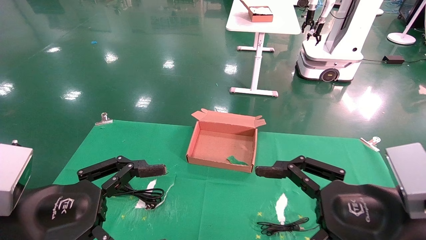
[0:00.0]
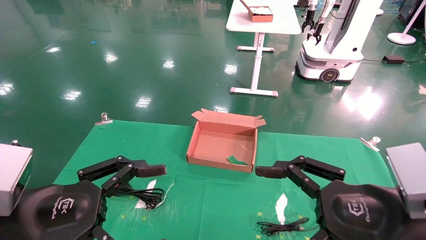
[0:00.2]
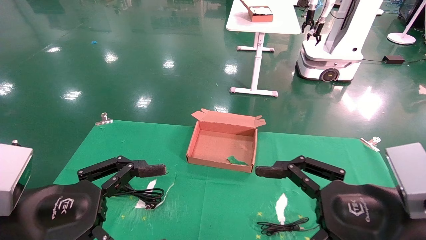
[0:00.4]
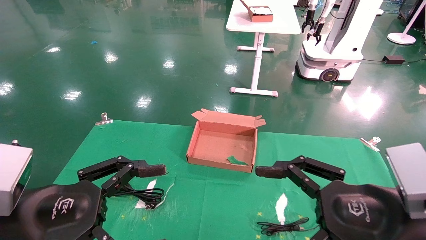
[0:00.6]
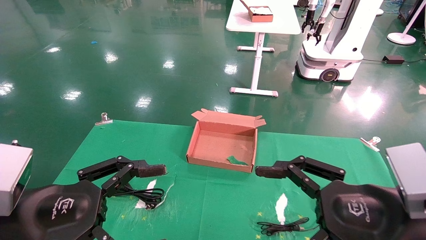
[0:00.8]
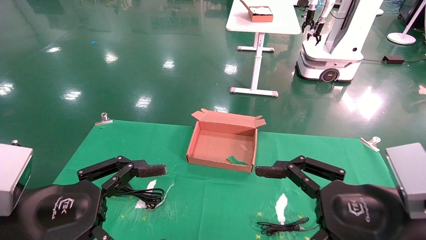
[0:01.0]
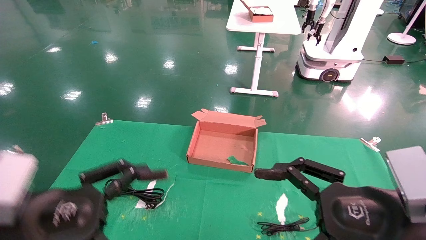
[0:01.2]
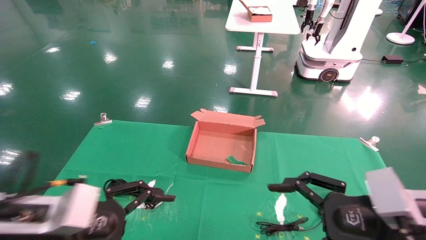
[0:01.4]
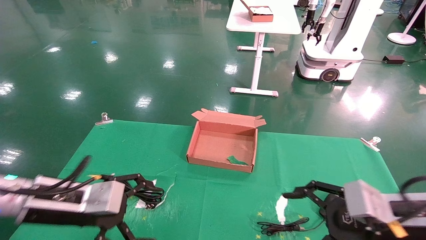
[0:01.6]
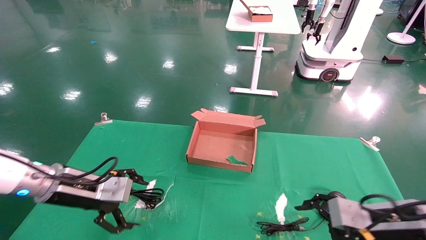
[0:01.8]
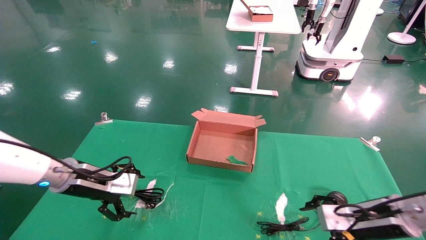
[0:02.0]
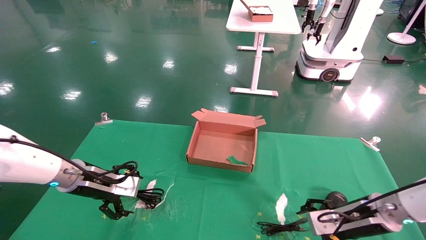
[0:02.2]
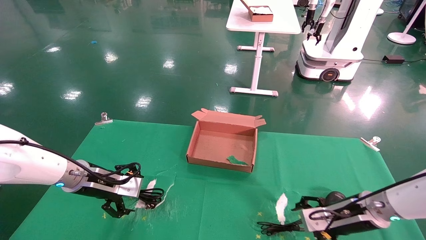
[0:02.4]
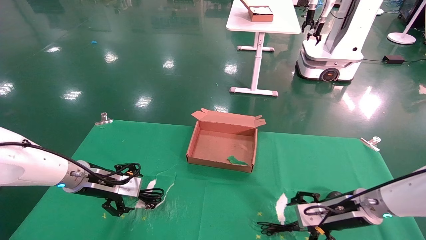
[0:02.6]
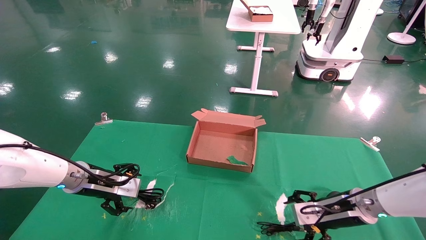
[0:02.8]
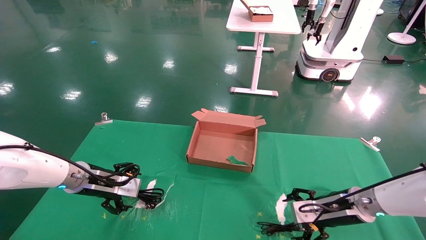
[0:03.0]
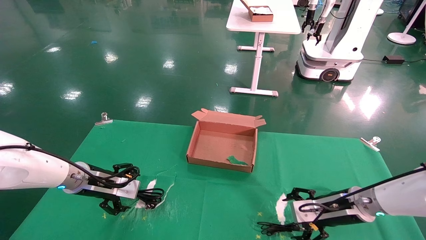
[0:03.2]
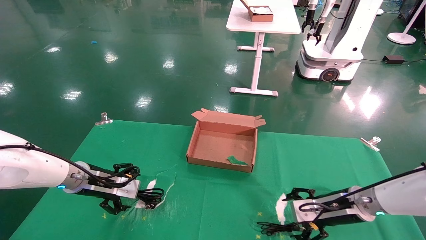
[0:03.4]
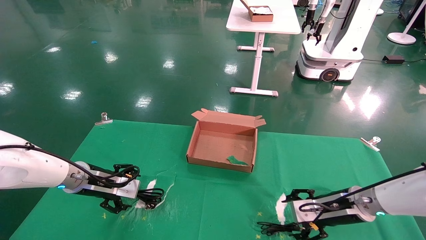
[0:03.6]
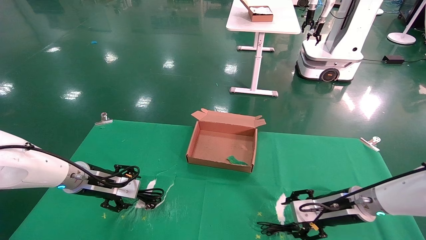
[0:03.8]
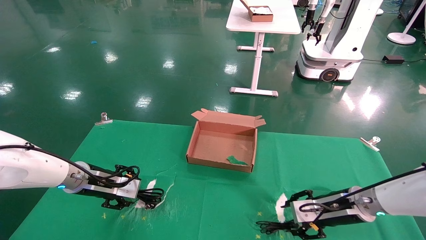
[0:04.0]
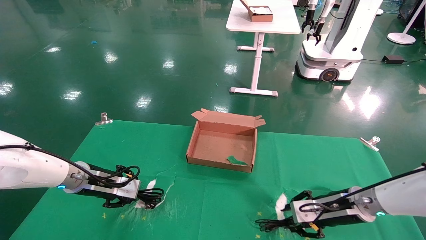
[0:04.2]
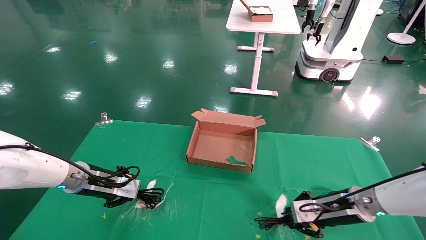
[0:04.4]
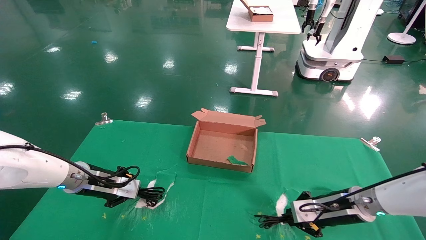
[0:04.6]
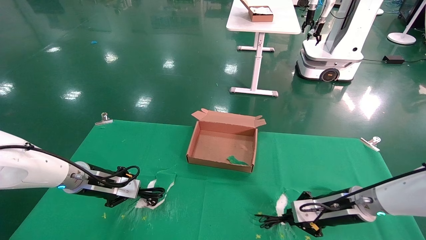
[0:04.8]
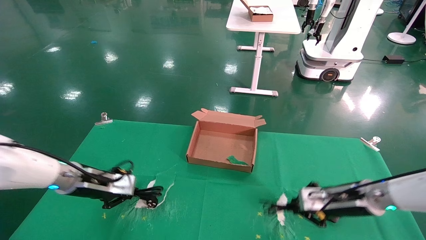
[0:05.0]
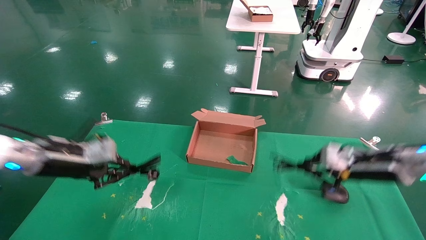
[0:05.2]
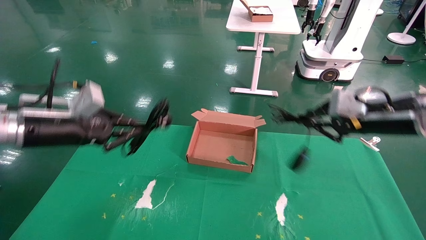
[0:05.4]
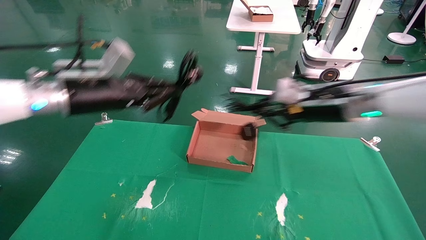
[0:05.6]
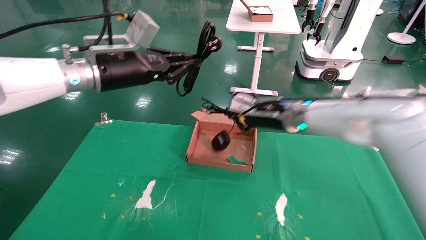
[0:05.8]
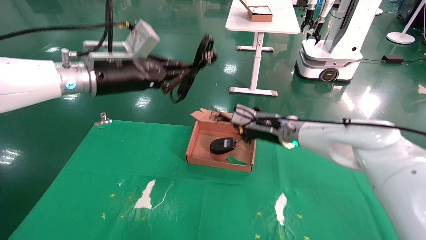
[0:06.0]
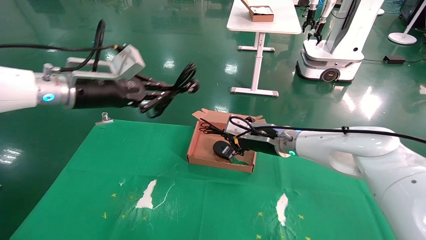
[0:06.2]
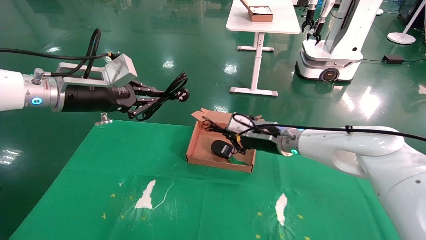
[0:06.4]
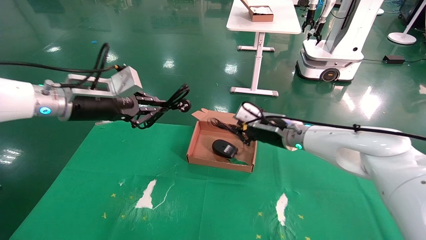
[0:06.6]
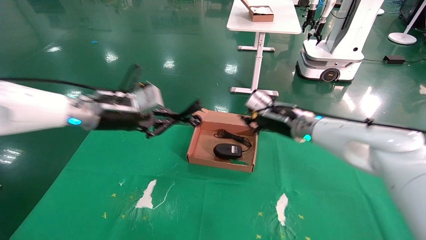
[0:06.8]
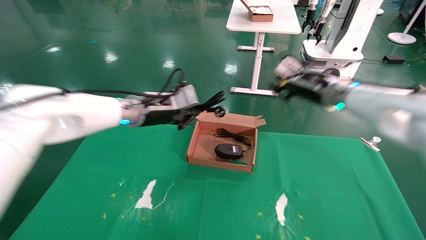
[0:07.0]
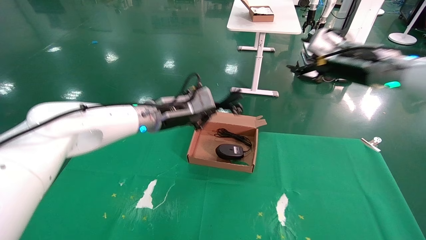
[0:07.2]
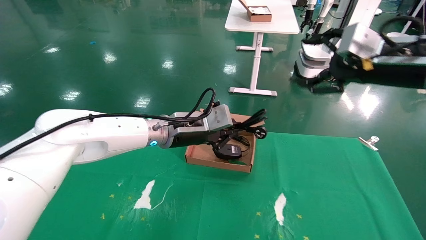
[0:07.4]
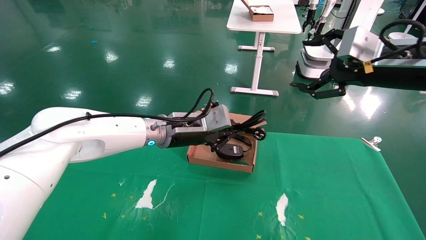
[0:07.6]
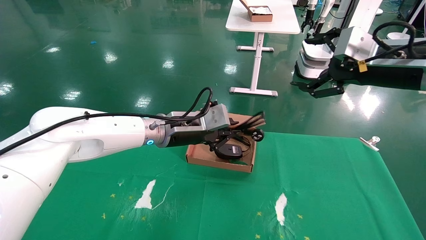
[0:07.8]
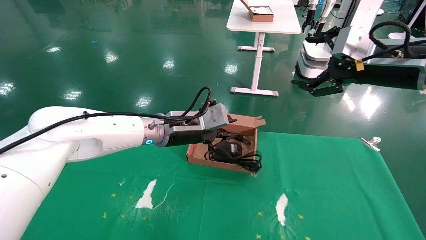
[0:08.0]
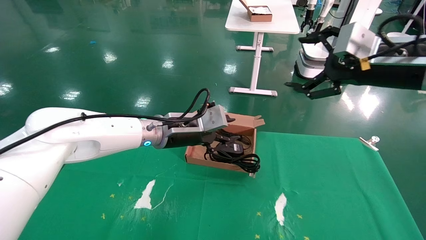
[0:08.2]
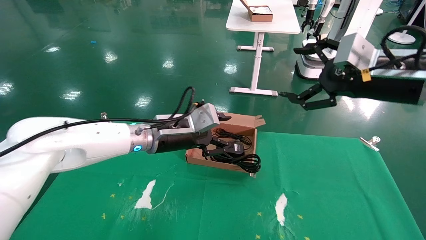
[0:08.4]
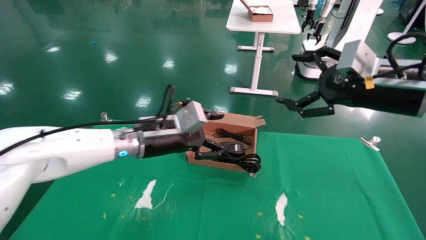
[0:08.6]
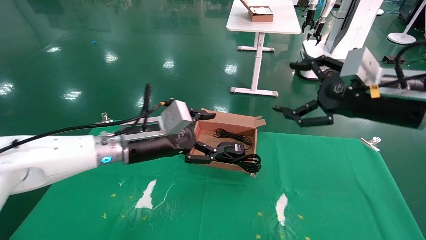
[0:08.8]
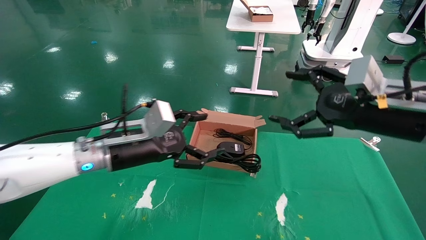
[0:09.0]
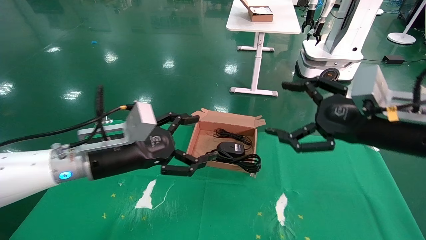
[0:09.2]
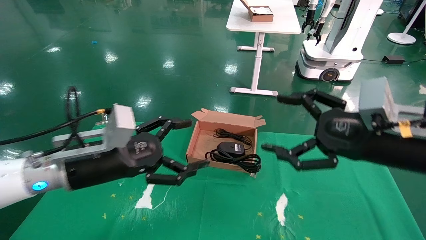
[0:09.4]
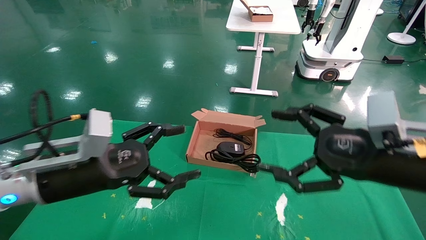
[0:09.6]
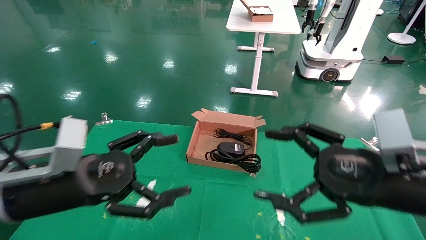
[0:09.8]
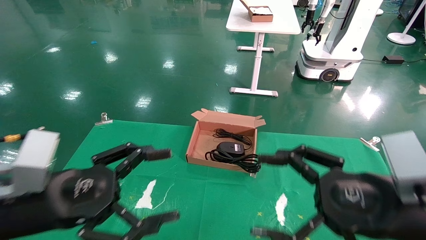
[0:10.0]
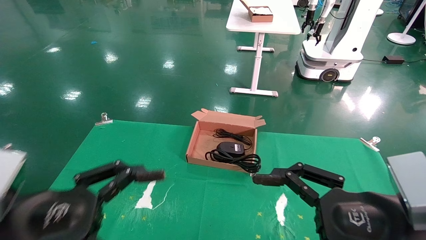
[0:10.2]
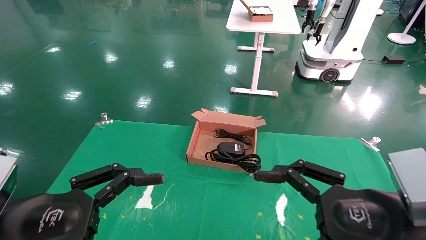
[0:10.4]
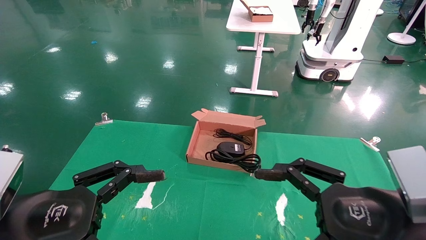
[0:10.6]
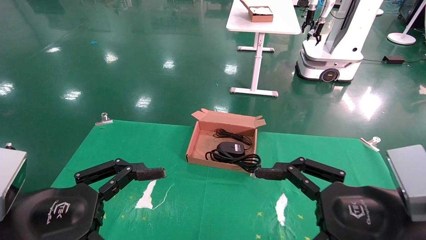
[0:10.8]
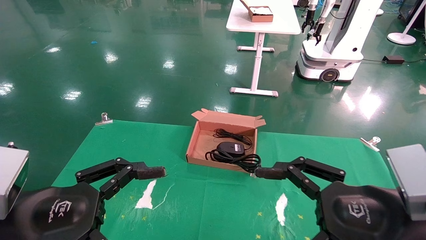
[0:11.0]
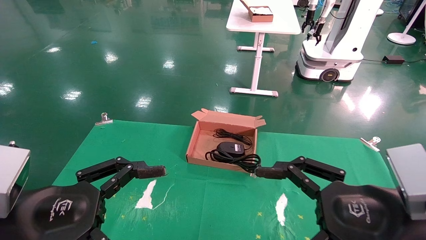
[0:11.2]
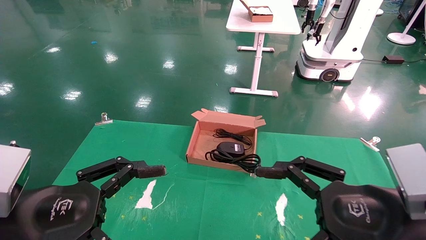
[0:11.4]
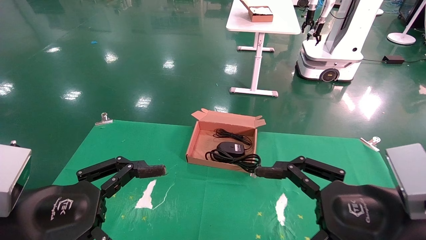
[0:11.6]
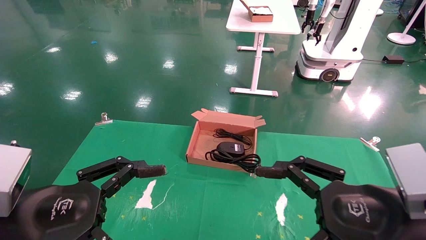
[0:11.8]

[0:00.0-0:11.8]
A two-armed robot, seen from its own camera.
Step, 0:01.4 to 0:04.6: Grab and lift both the mouse and power cord from the accessory packaging area at the same time.
Step, 0:04.8 to 0:08.6: Place the mouse and power cord into the box.
0:00.0 to 0:01.4: The left gripper heads forward, covering about 5 cm; the right gripper shifts by approximately 5 cm.
0:01.4 to 0:03.0: The right gripper goes roughly 20 cm forward and downward, while the left gripper moves forward, some 20 cm.
0:03.0 to 0:04.4: The left gripper closes its fingers. Meanwhile the right gripper closes up.
0:04.4 to 0:06.0: The left gripper heads upward, covering some 20 cm; the right gripper travels to the left, upward and forward by some 20 cm.
0:06.0 to 0:07.4: The left gripper moves to the right and downward, roughly 15 cm; the right gripper heads to the right, upward and backward, covering some 25 cm, and opens its fingers.
0:07.4 to 0:08.8: The left gripper moves to the left and backward, roughly 10 cm, and opens its fingers. Meanwhile the right gripper moves downward, some 5 cm.
0:08.8 to 0:10.4: The right gripper is displaced backward and downward by about 20 cm. The left gripper heads backward and to the left, covering some 25 cm.
0:10.4 to 0:11.8: The two grippers keep their place.

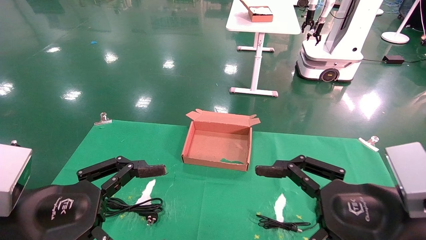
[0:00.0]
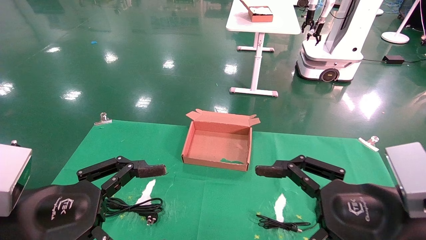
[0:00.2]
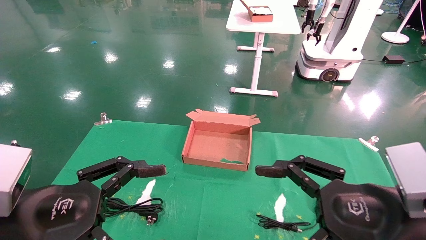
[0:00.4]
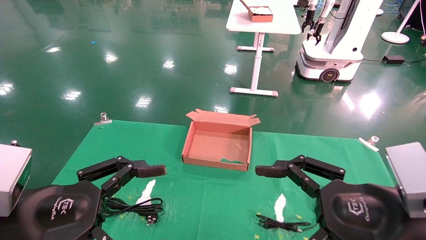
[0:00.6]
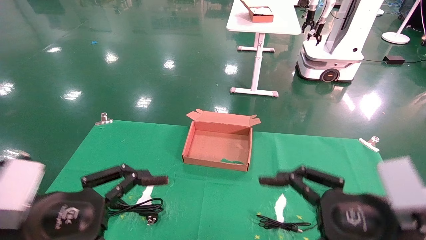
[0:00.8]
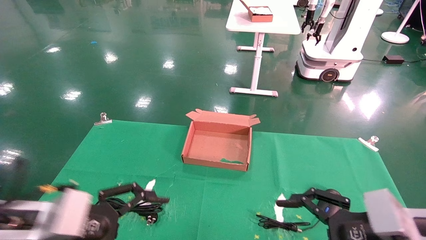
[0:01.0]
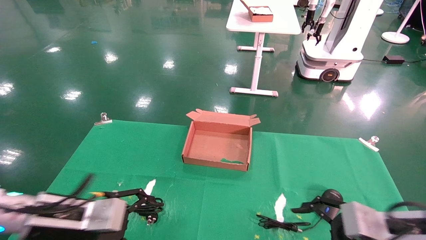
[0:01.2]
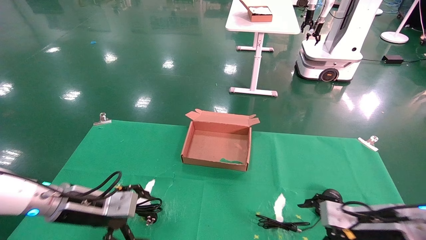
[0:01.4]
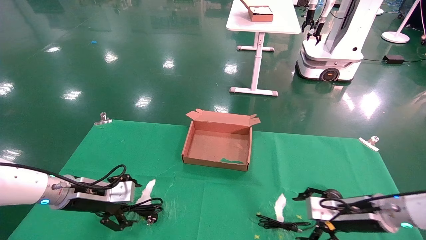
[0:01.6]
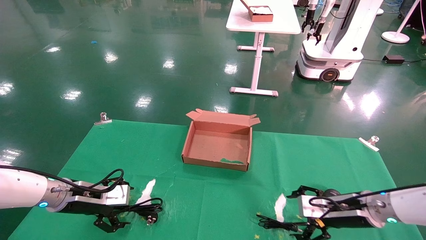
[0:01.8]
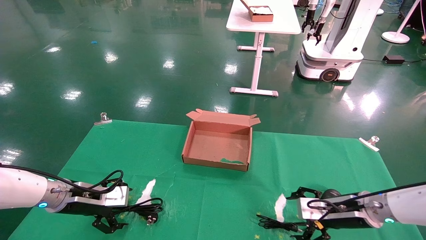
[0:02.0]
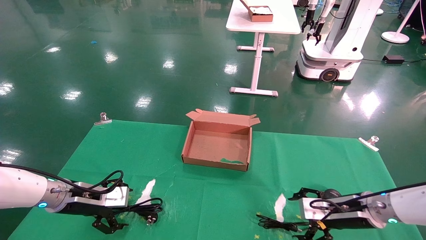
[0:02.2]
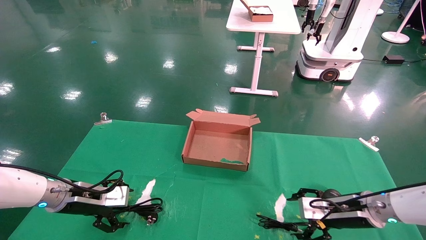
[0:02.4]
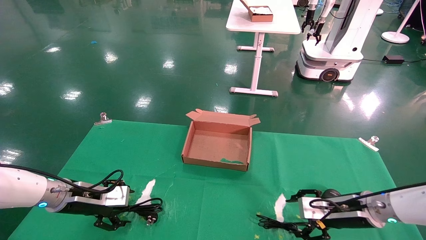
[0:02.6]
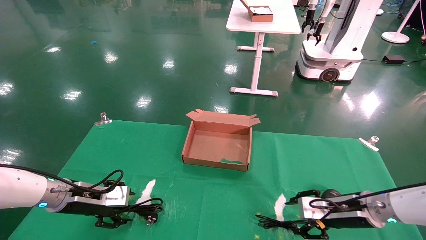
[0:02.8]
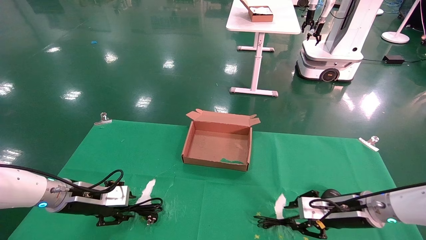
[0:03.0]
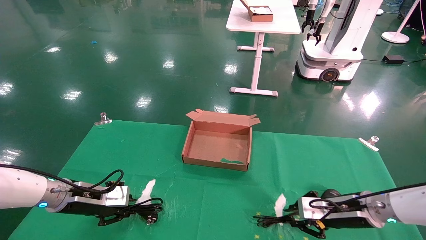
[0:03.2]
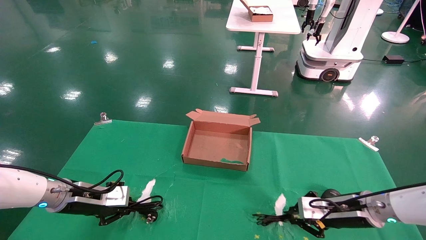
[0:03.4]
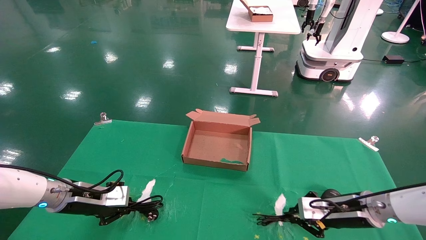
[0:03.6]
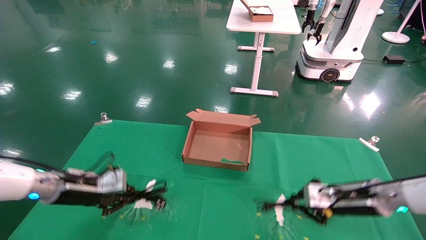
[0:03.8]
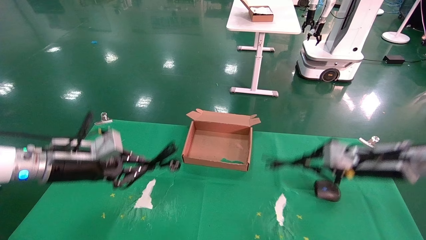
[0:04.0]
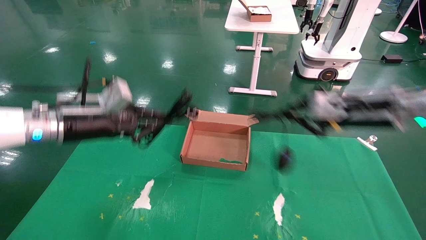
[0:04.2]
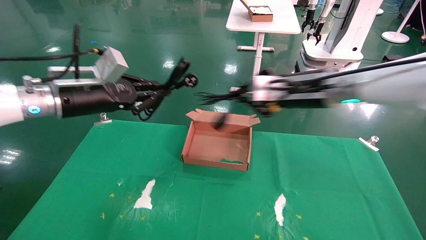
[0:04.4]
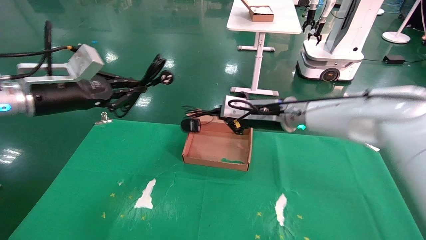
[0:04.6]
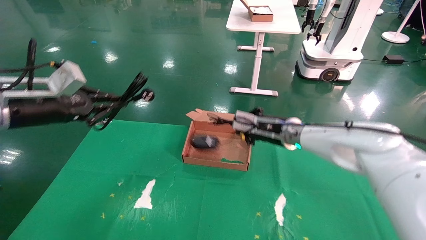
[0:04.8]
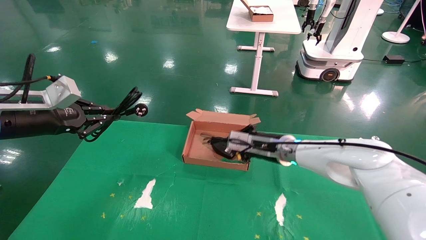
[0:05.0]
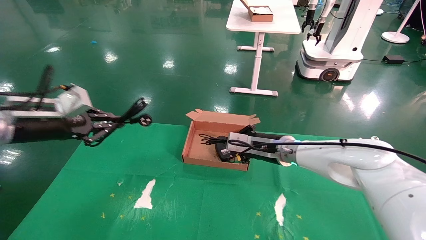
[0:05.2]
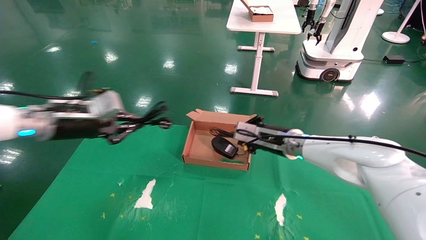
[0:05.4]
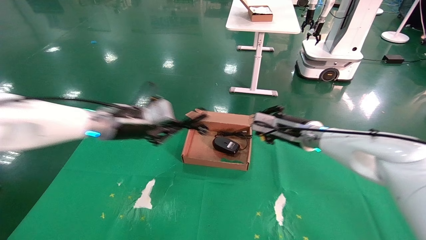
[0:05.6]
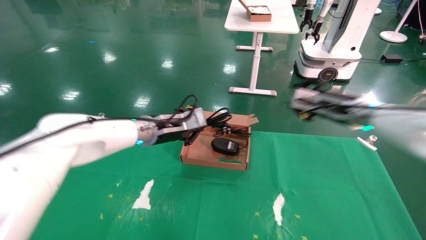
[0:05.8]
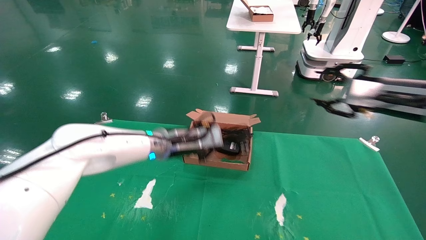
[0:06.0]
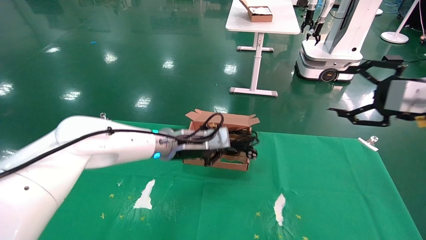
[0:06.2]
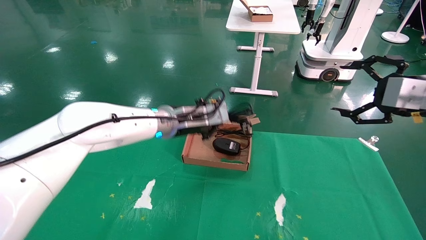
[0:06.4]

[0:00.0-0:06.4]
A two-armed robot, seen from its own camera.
Step, 0:01.0 to 0:03.4: Grab and lift both the mouse and power cord from the accessory packaging area at the same time.
0:00.0 to 0:01.6: Both grippers travel together forward and downward, roughly 25 cm.
0:01.6 to 0:03.2: The left gripper closes. The right gripper closes its fingers.
0:03.2 to 0:04.8: The left gripper goes approximately 20 cm upward. Meanwhile the right gripper shifts roughly 25 cm to the left, upward and forward.
0:04.8 to 0:06.4: The left gripper moves to the right, approximately 25 cm; the right gripper goes roughly 30 cm to the right, backward and upward, and opens up.
